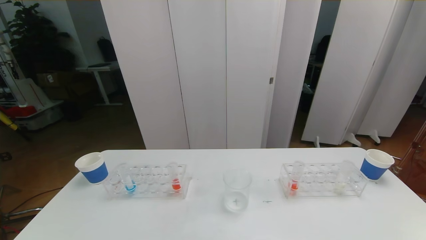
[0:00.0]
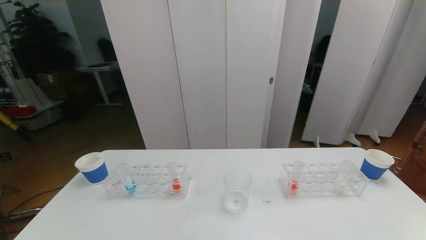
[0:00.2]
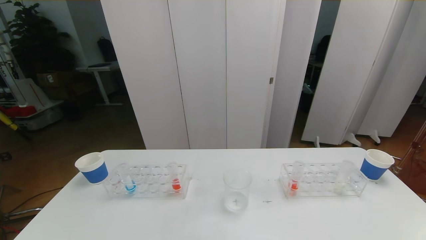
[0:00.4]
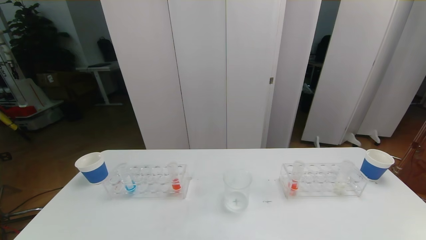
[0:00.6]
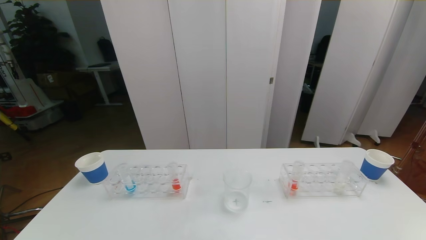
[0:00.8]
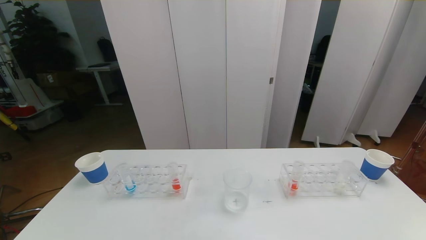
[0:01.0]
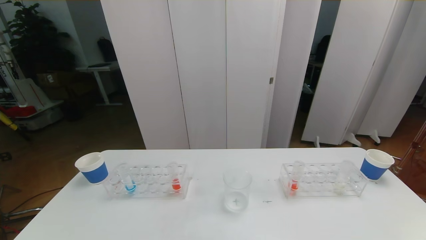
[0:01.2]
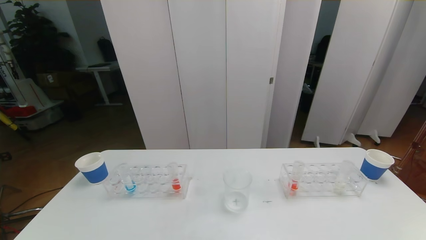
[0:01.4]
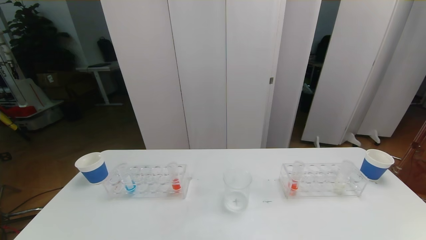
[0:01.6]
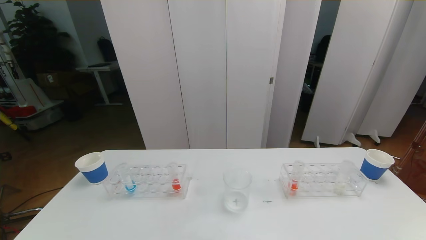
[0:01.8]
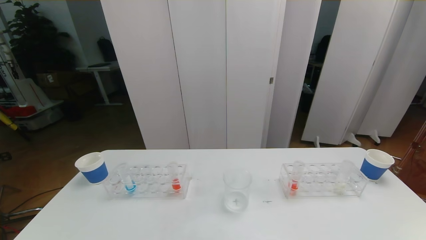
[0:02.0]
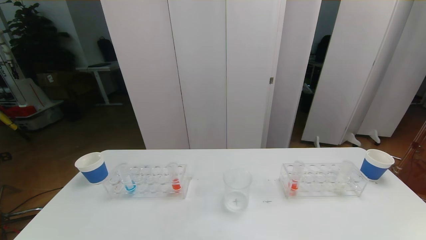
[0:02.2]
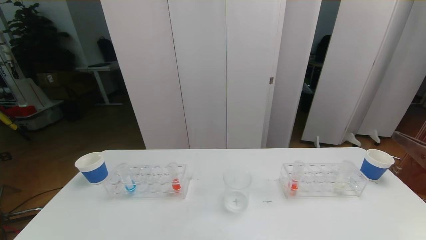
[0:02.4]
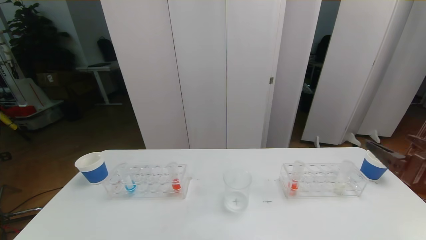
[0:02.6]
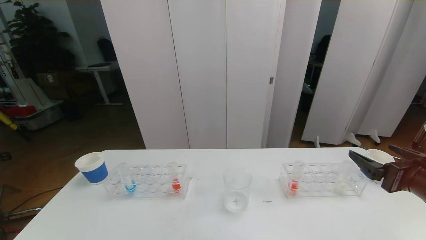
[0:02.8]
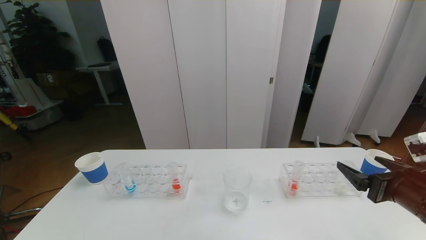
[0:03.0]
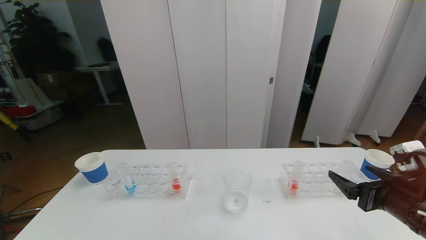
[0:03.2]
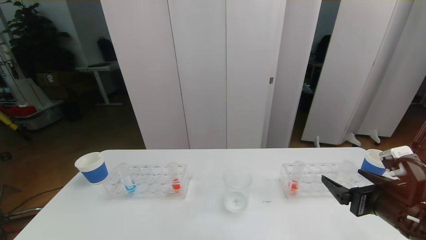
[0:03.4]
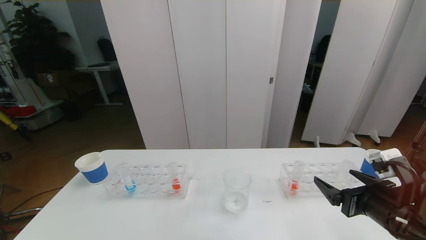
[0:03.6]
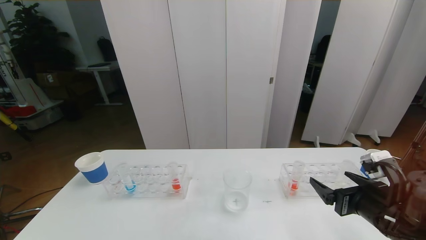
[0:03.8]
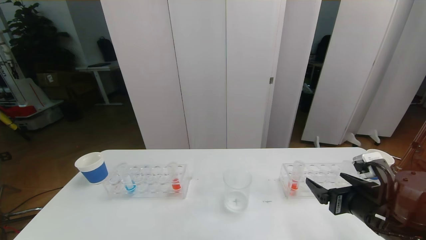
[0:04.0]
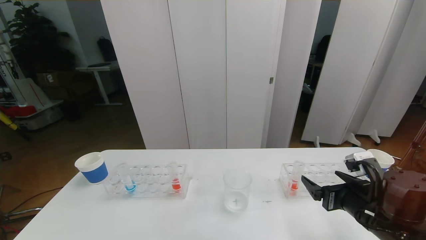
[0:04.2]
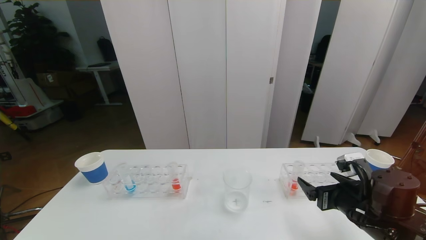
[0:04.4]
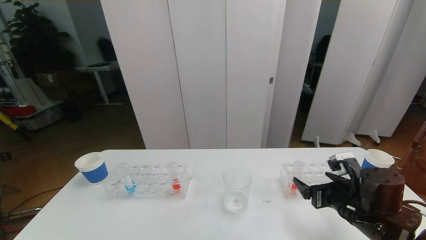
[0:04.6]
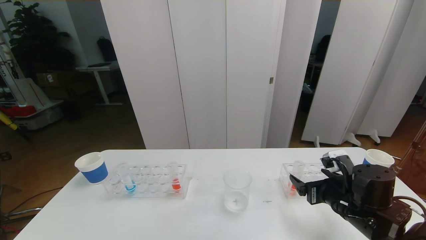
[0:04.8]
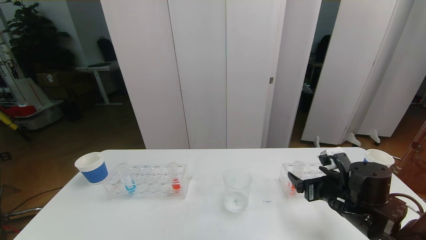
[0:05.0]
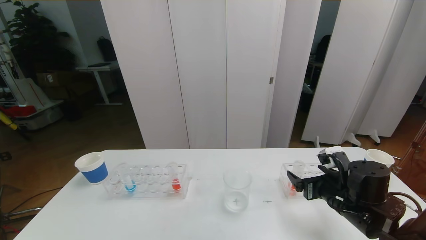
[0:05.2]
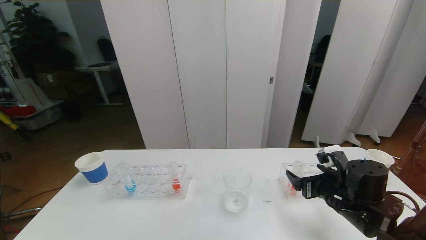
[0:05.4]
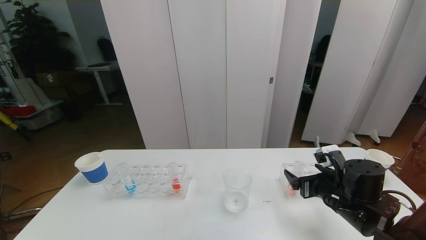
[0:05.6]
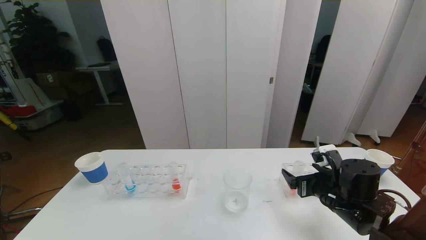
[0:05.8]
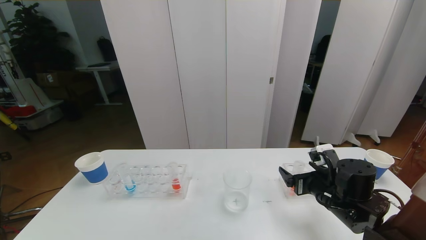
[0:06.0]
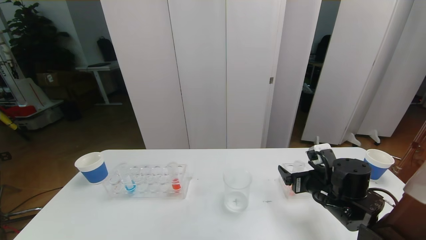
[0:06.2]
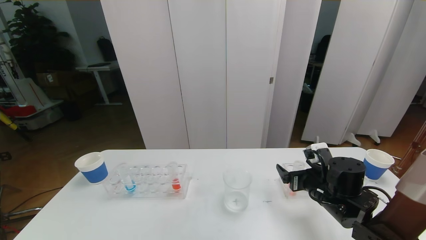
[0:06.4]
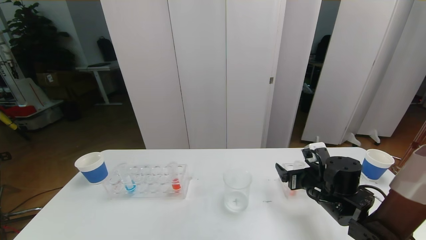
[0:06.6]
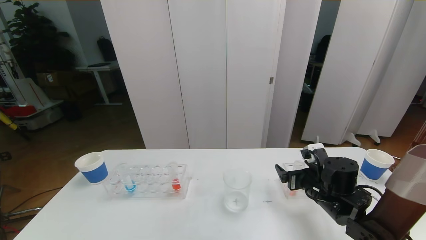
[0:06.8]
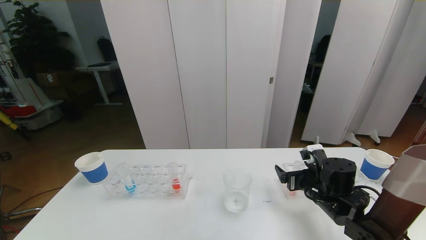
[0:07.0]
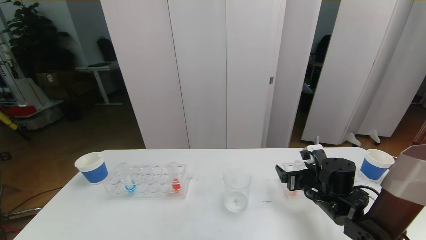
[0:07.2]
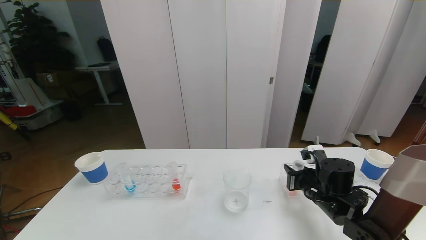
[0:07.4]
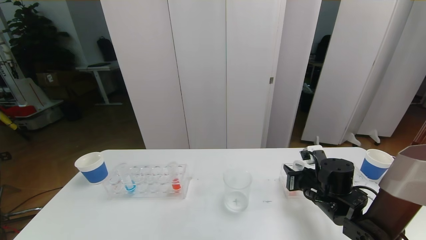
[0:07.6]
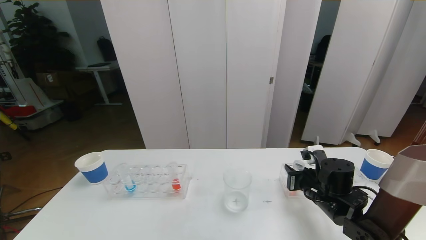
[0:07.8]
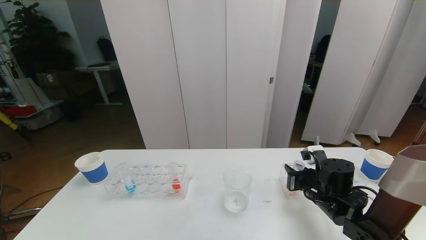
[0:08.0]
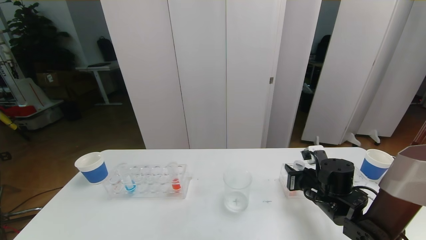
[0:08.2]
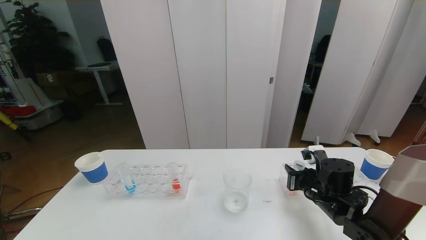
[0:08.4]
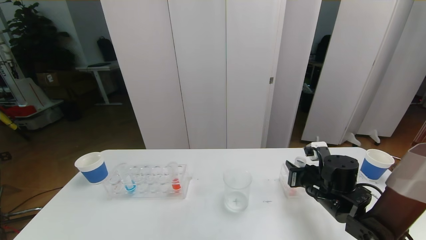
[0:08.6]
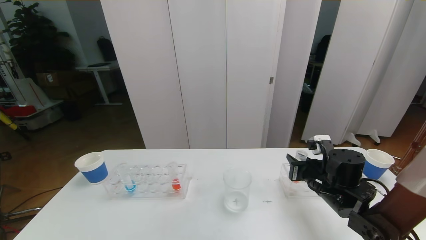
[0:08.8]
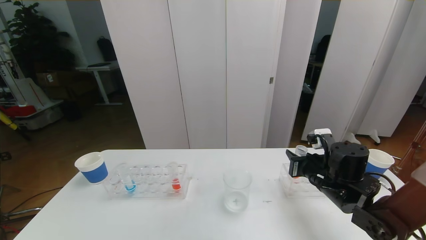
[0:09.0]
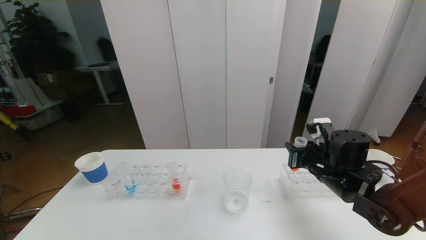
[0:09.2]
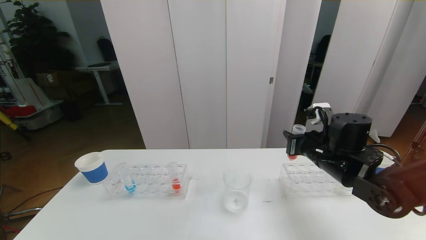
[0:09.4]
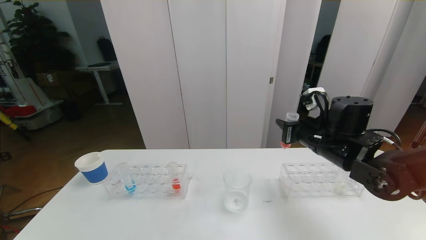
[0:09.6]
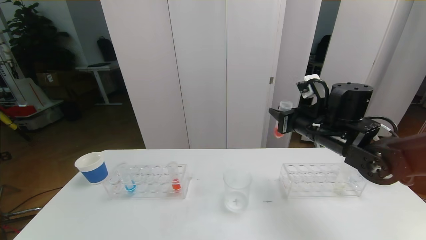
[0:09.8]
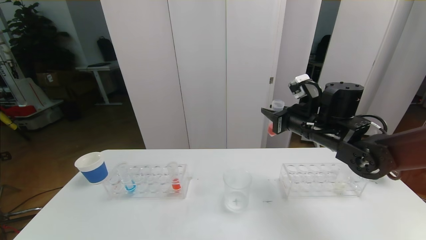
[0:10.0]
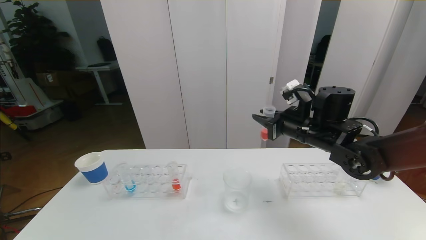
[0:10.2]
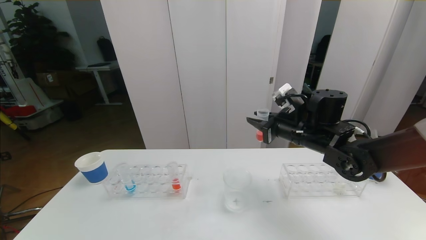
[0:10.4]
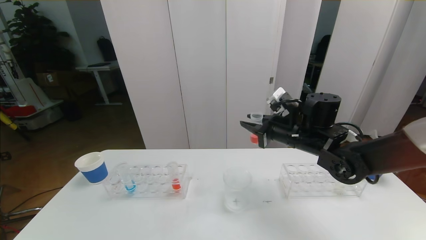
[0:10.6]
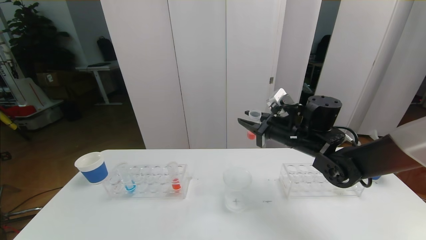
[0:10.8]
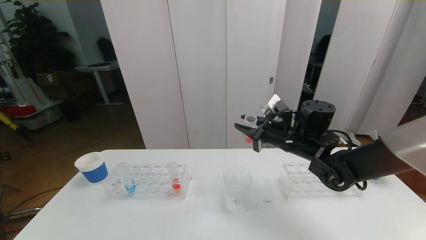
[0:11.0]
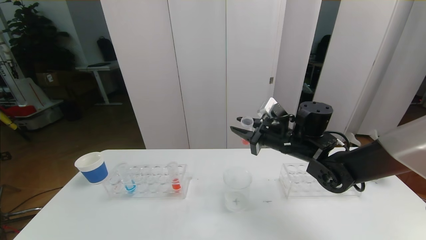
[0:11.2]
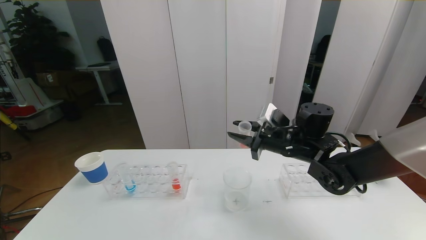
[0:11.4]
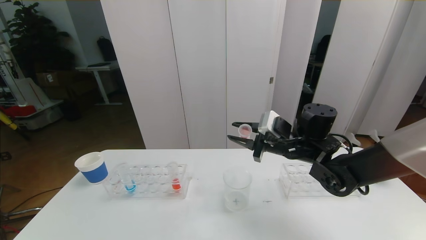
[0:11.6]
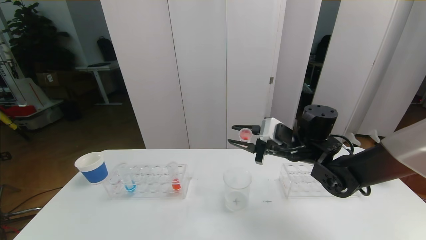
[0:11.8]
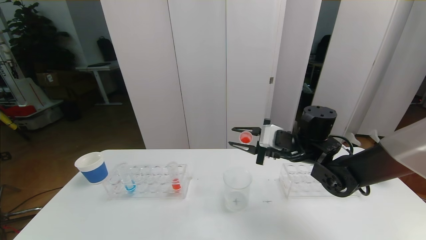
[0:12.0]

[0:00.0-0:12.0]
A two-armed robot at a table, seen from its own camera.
Task of the whole recording: pick up the test tube with red pigment the test tube with blue pigment and the test tube with white pigment by grippers and pour them into the beaker.
0:01.6 to 0:03.0: The right gripper goes approximately 20 cm forward.
0:03.0 to 0:04.4: The right gripper is displaced downward by roughly 5 cm.
0:04.4 to 0:06.0: The right gripper ends up about 5 cm from where it was.
0:06.0 to 0:07.6: The right gripper closes.
0:07.6 to 0:09.0: The right gripper heads upward, covering some 5 cm.
0:09.0 to 0:10.4: The right gripper goes approximately 10 cm upward and forward.

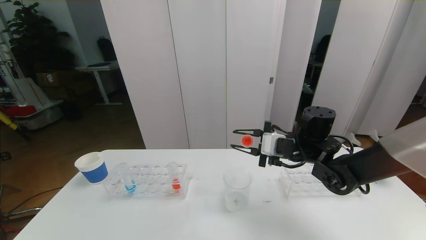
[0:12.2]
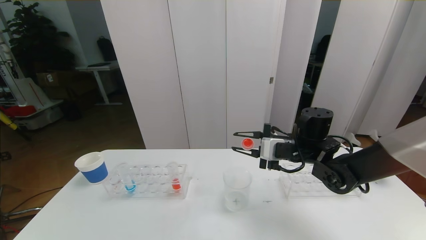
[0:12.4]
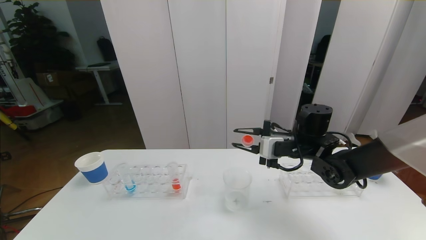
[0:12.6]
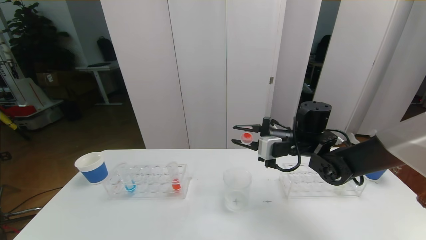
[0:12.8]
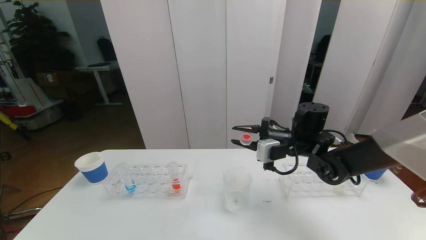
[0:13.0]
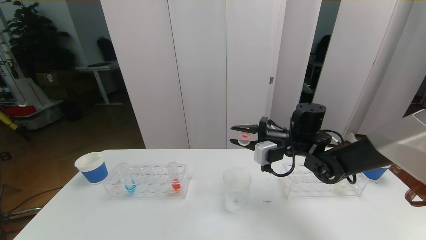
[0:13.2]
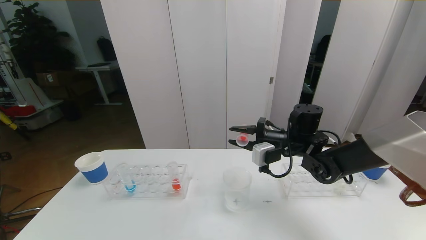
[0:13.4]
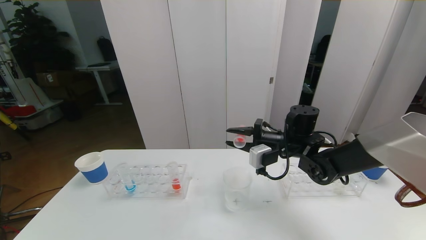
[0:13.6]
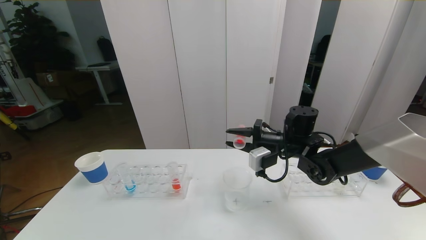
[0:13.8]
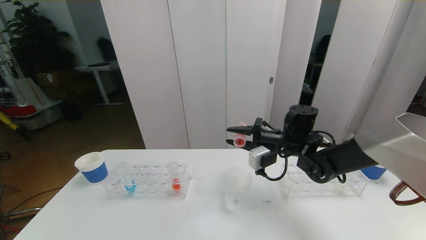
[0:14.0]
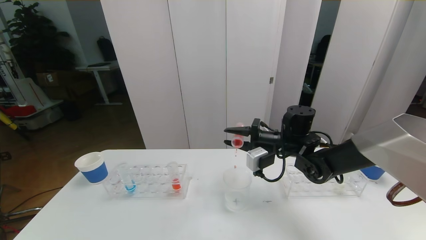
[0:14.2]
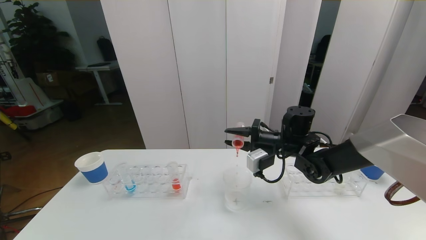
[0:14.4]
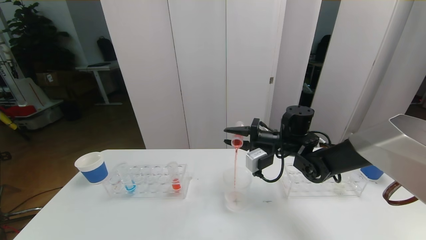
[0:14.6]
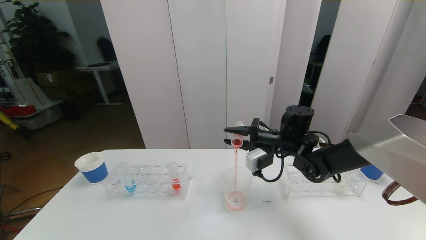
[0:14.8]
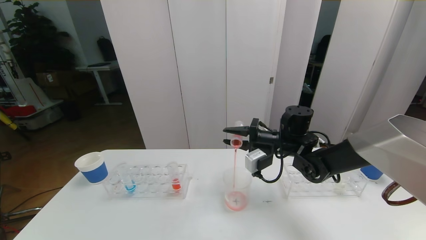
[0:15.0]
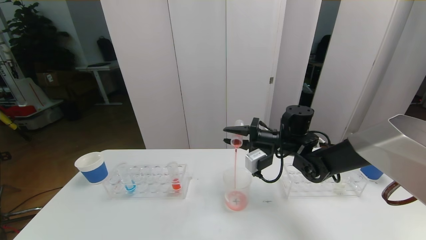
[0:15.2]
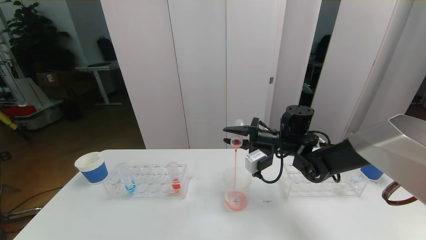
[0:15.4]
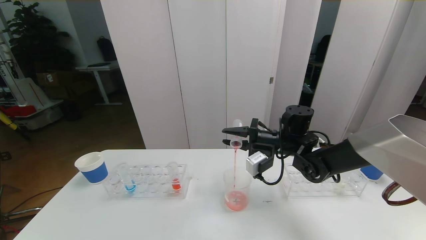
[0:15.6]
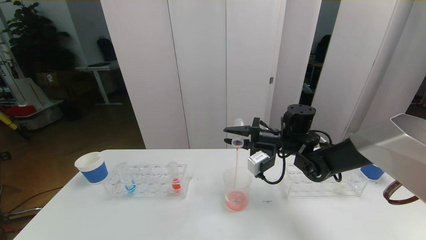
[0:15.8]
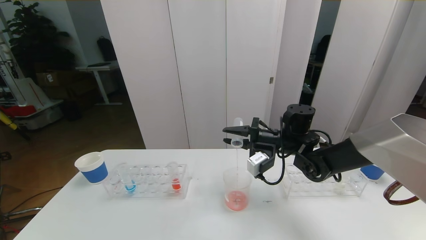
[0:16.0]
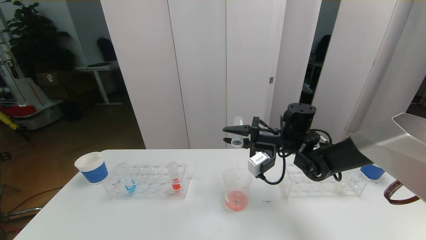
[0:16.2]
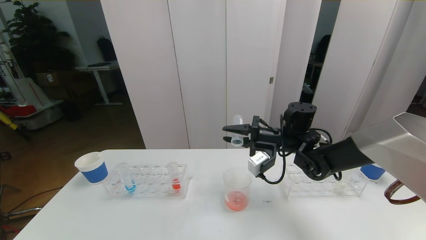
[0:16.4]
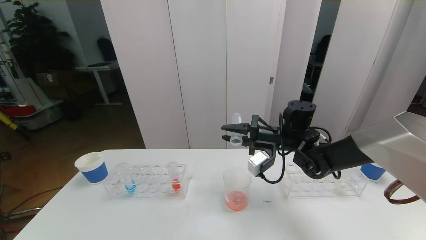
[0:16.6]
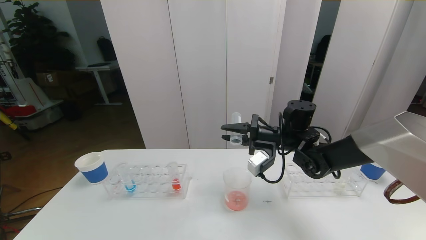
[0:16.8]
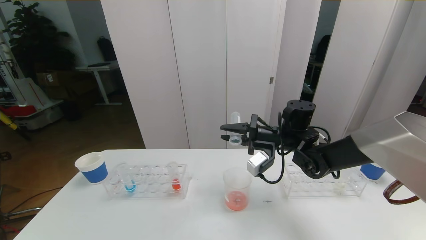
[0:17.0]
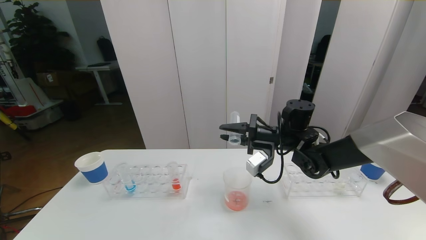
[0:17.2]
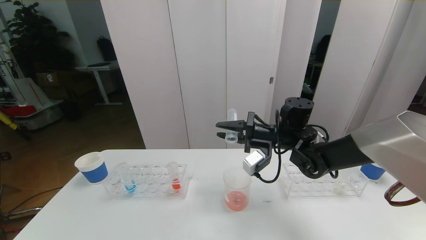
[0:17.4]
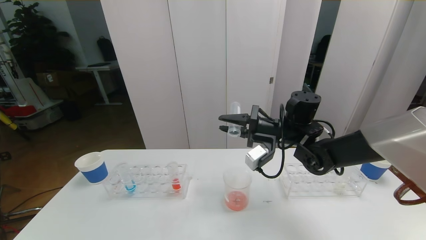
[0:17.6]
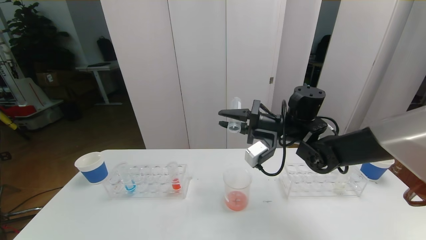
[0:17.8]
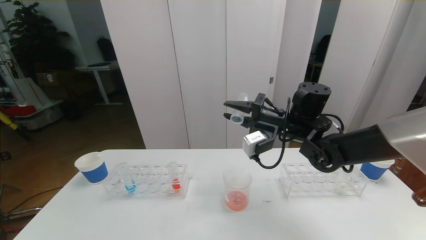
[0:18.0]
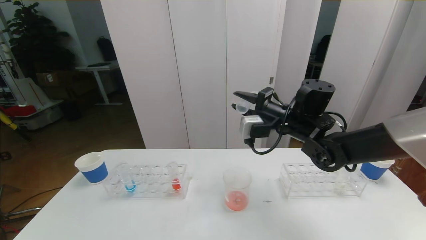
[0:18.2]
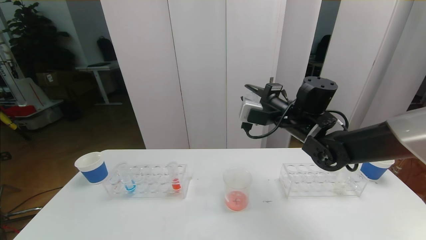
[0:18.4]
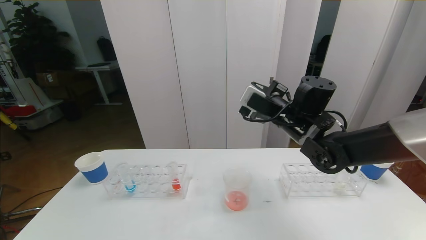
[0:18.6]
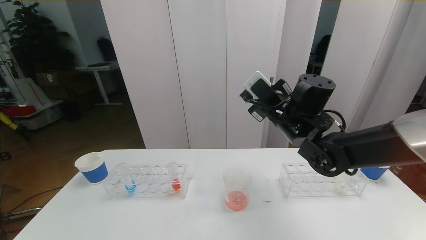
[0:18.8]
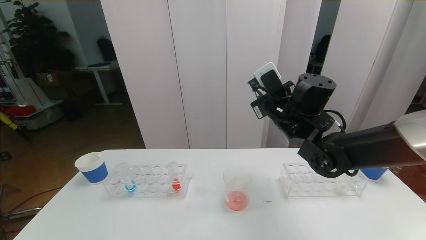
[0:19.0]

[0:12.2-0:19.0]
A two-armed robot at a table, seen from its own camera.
Task of the whole recording: pick up the test tube with red pigment the test tube with blue pigment and the test tube with white pigment by grippers and pour them into the beaker.
0:13.6 to 0:15.0: There are only small adjustments of the grippers.
0:15.0 to 0:17.6: There are only small adjustments of the grippers.
0:17.6 to 0:19.0: The right gripper shifts by approximately 5 cm.
